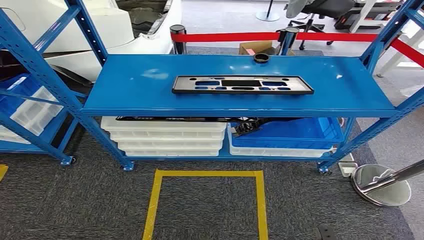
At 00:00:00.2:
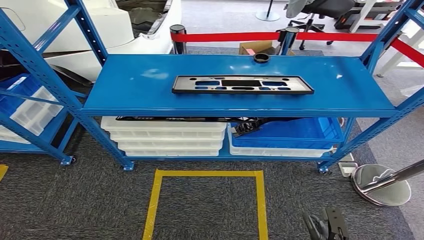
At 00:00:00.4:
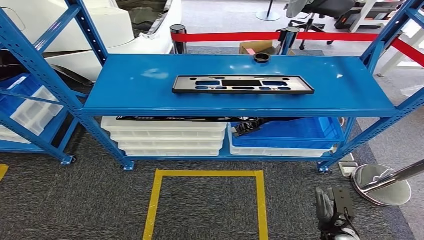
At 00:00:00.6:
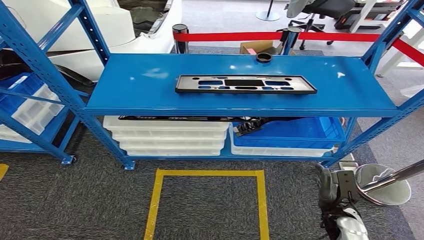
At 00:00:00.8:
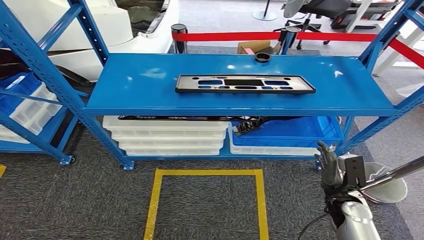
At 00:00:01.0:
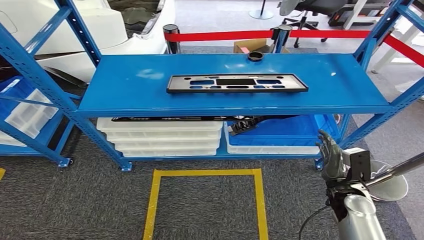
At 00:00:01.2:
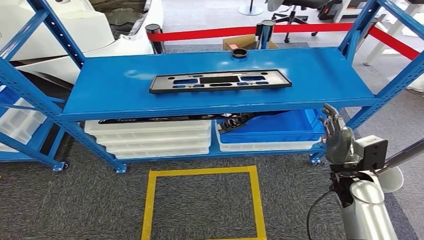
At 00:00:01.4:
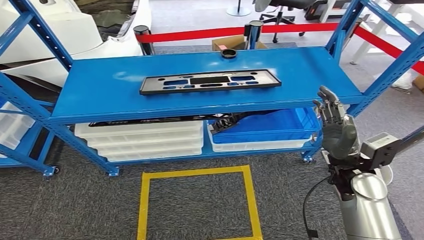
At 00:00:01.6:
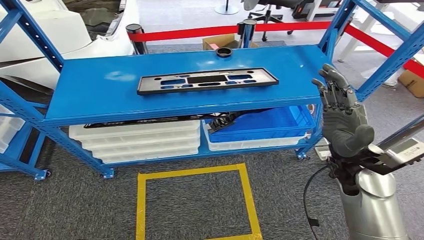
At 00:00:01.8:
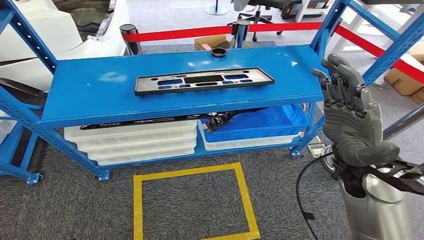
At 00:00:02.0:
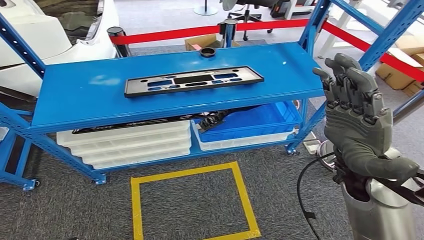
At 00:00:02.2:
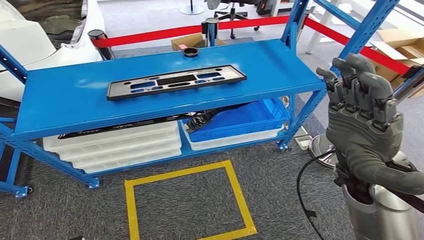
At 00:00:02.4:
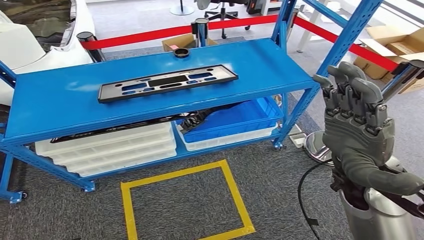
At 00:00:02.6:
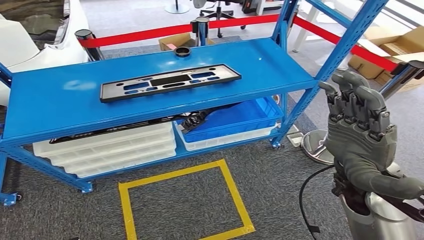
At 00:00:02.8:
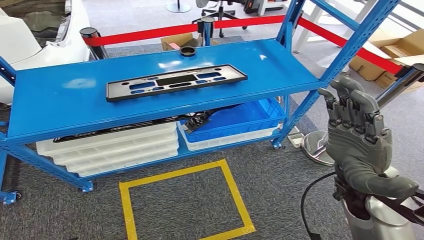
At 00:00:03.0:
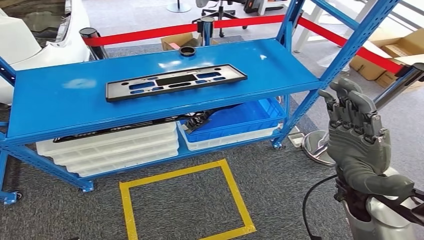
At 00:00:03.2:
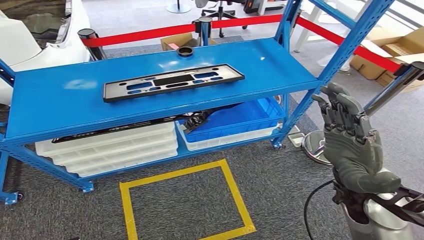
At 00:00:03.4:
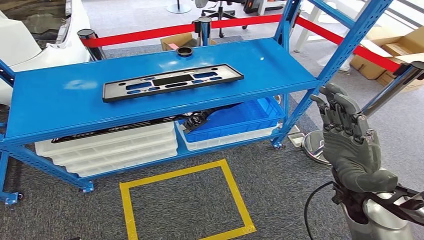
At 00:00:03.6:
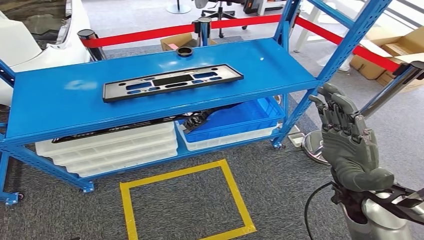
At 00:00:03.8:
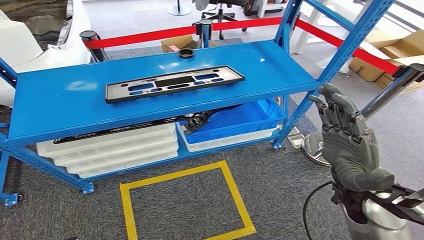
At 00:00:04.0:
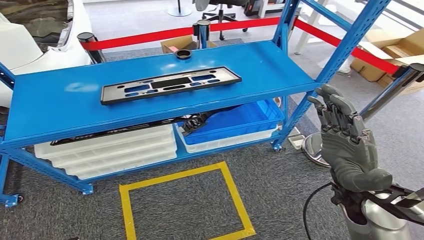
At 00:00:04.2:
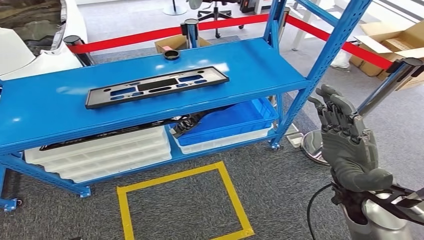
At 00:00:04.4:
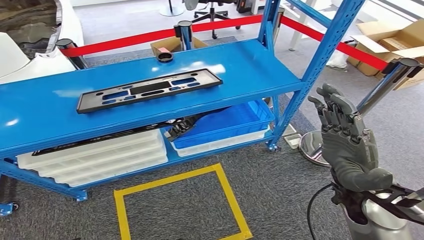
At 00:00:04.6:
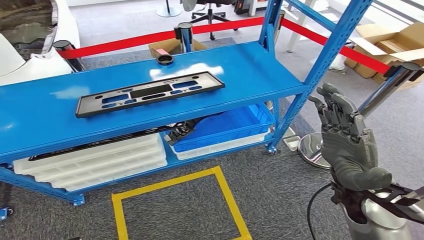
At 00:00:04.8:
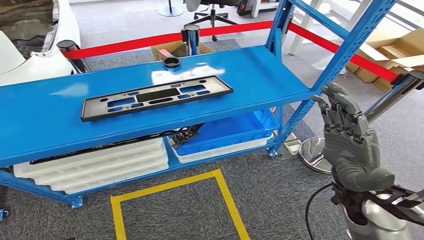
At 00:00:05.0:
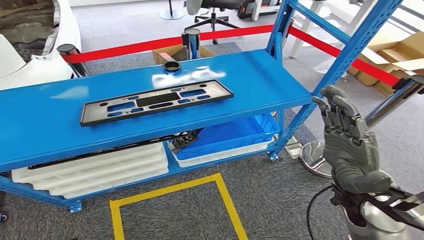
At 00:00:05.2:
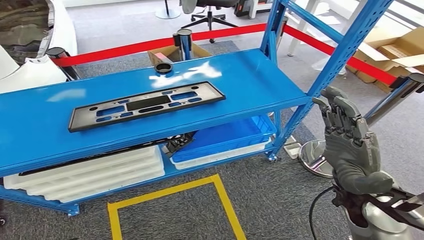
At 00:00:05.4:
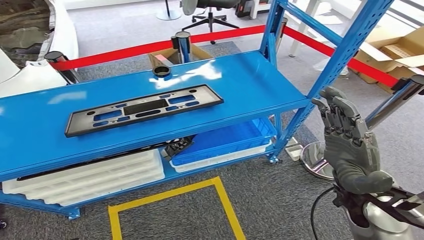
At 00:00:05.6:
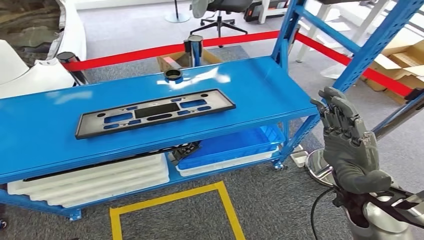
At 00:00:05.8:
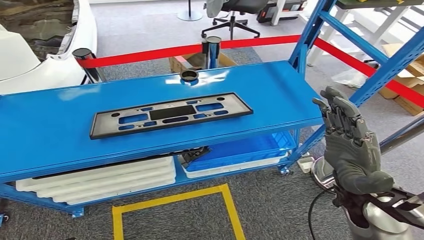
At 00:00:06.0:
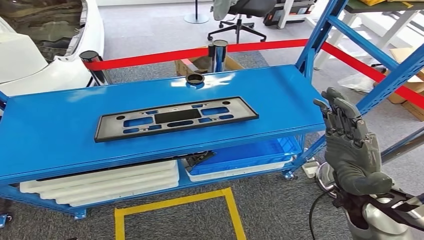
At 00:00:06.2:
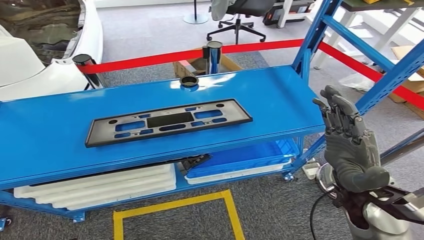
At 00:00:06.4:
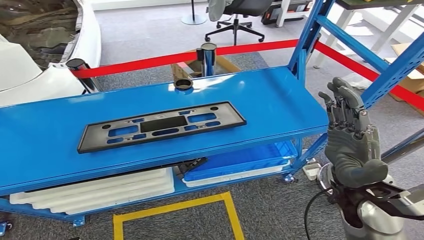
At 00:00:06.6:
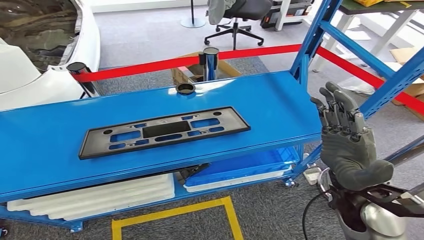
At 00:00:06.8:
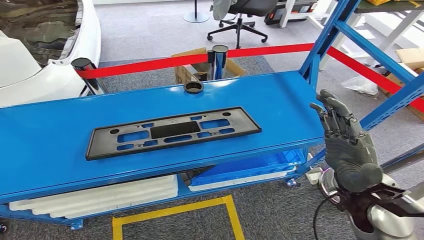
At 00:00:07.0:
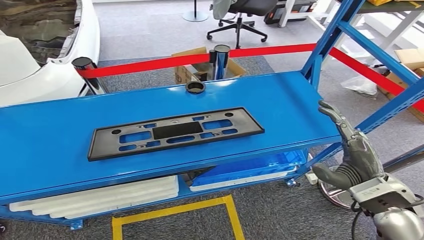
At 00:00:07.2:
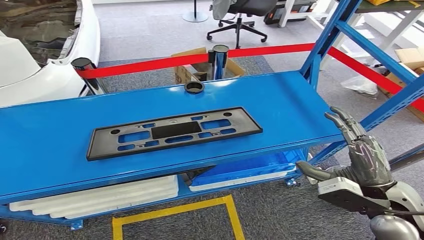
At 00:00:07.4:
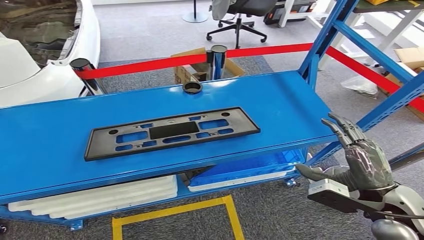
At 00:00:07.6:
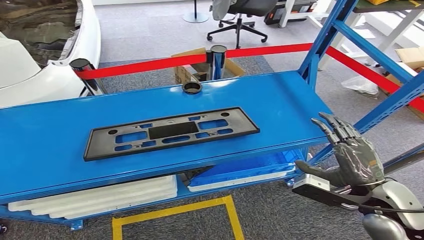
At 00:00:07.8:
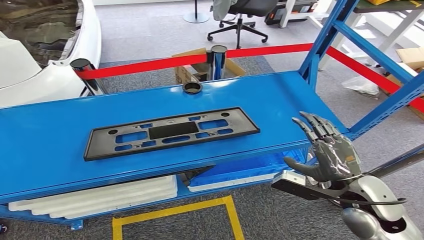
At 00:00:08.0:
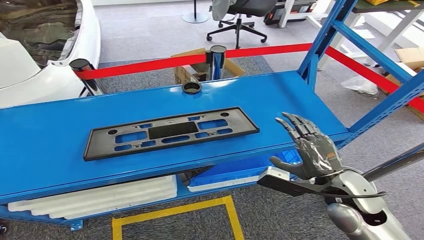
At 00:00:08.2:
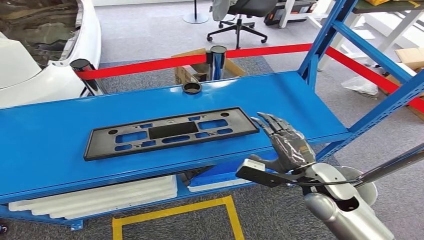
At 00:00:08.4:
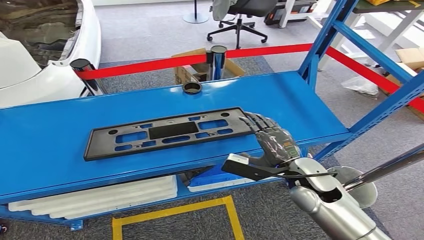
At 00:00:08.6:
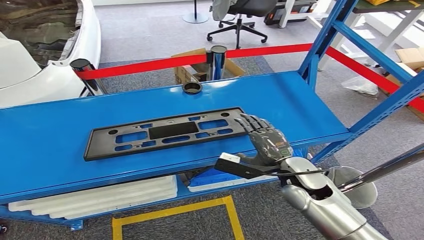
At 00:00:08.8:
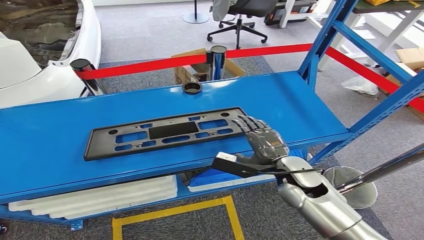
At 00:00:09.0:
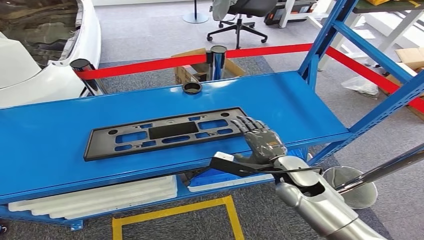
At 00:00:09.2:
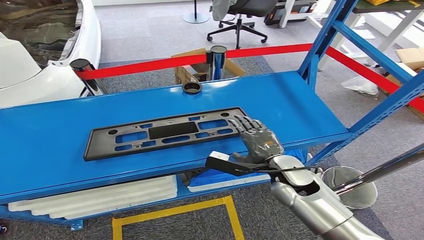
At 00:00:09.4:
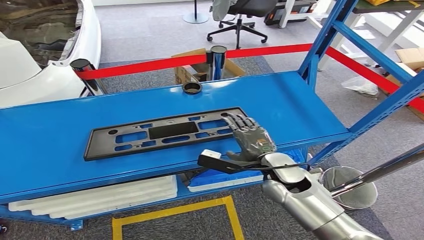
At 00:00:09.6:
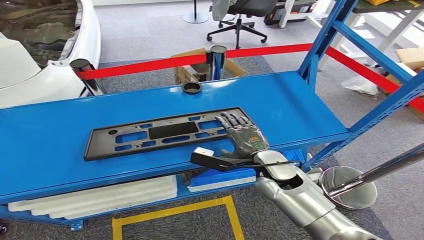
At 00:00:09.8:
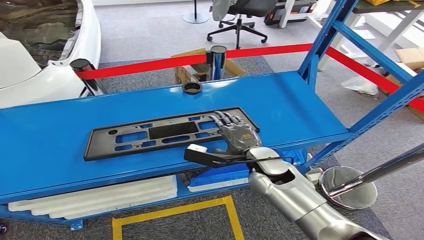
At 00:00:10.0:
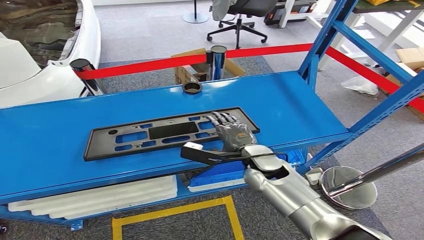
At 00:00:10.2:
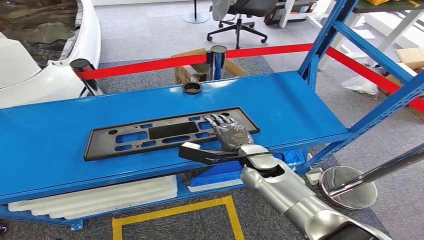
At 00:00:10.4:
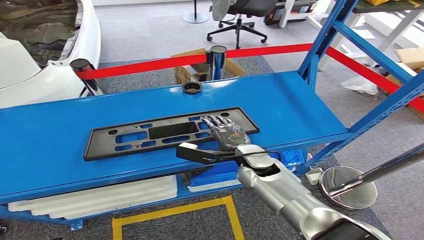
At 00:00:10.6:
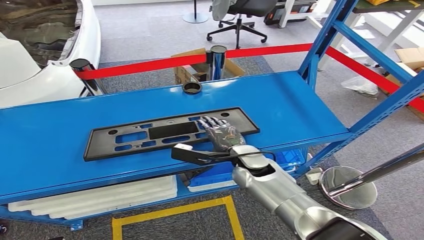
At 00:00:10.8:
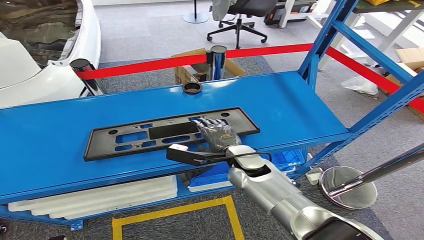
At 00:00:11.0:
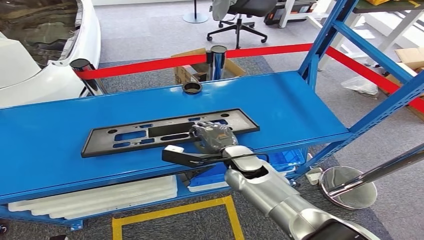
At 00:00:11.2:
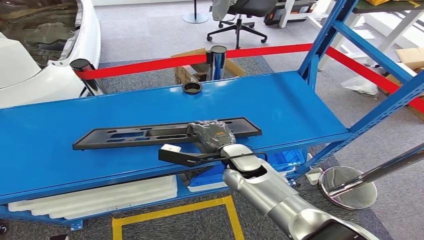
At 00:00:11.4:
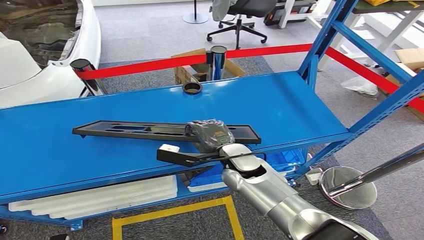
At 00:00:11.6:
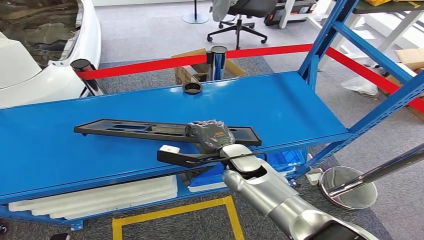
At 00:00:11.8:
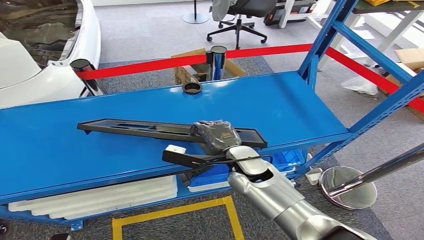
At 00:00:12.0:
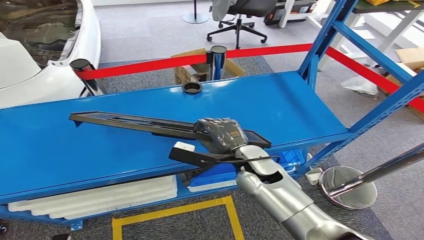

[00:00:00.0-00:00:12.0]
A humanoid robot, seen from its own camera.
00:00:07.6 to 00:00:09.0: The right hand shifts some 15 cm to the left, forward and downward.
00:00:09.0 to 00:00:10.4: The right hand heads to the left, covering about 10 cm.
00:00:10.4 to 00:00:12.0: The hands move only a little.

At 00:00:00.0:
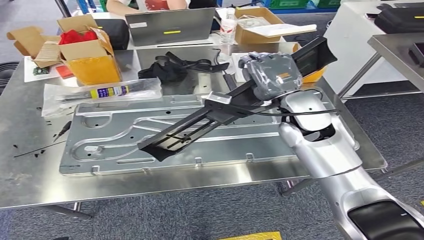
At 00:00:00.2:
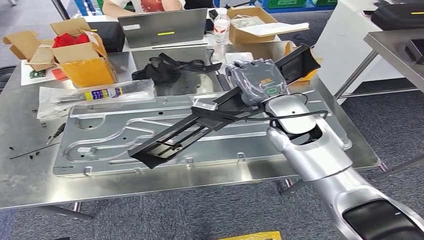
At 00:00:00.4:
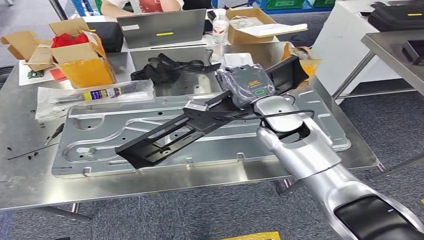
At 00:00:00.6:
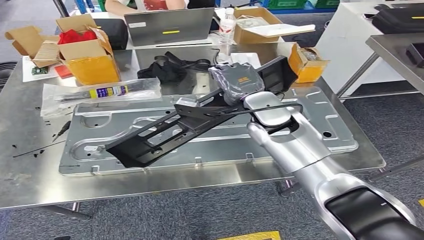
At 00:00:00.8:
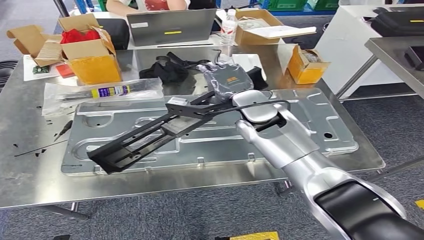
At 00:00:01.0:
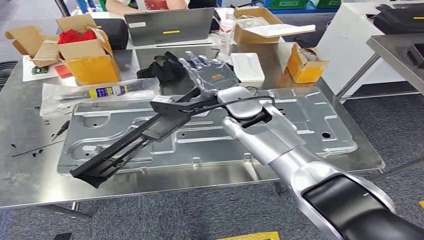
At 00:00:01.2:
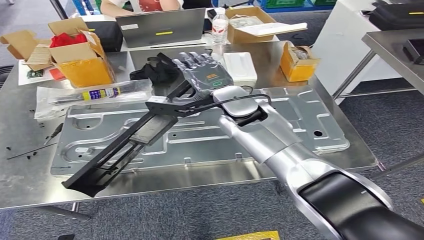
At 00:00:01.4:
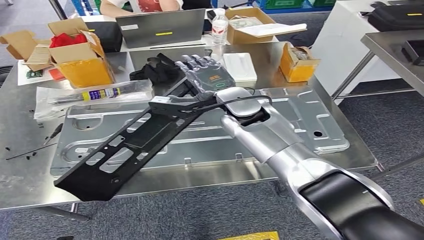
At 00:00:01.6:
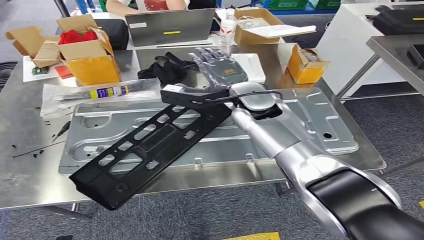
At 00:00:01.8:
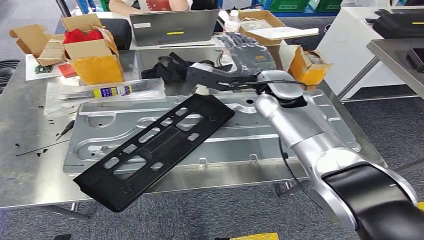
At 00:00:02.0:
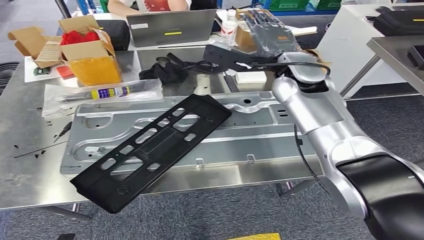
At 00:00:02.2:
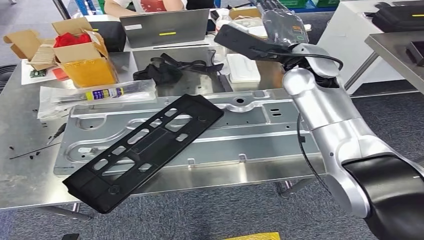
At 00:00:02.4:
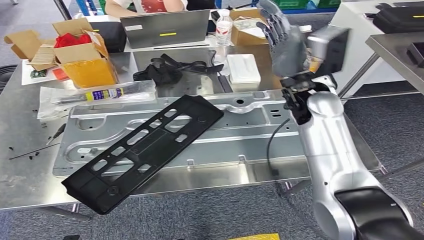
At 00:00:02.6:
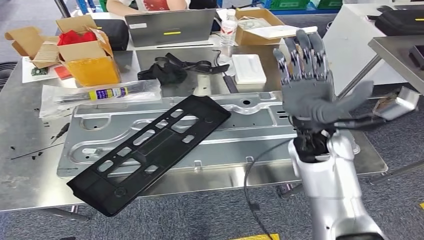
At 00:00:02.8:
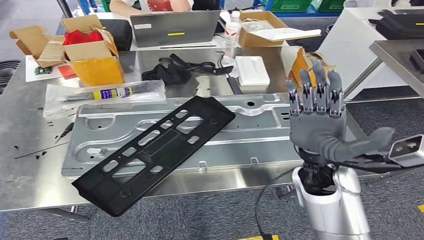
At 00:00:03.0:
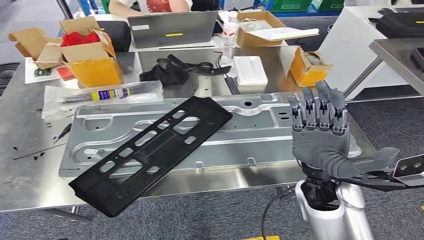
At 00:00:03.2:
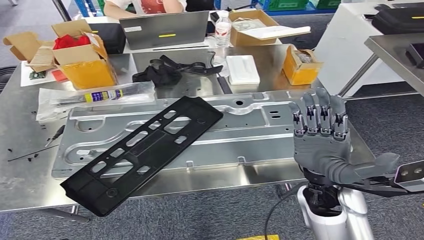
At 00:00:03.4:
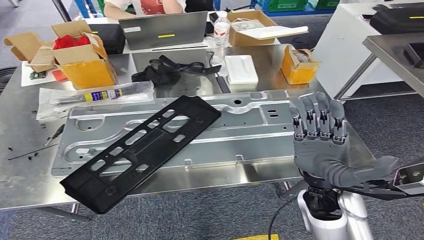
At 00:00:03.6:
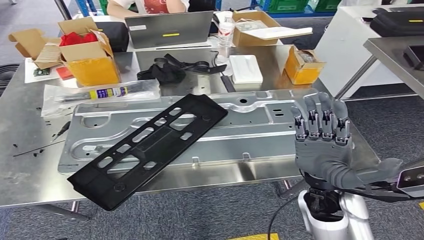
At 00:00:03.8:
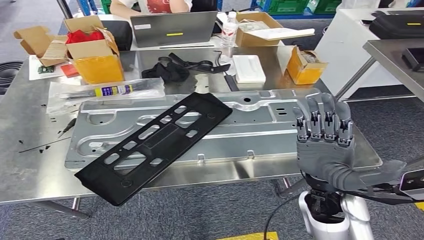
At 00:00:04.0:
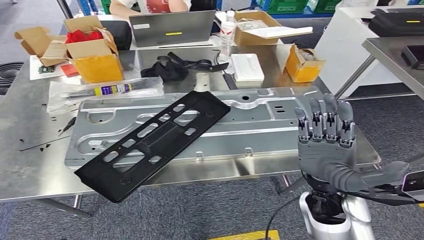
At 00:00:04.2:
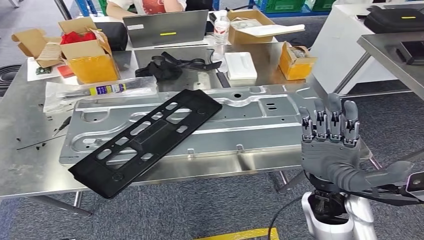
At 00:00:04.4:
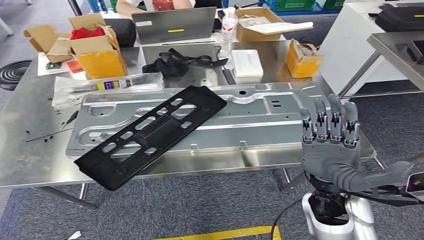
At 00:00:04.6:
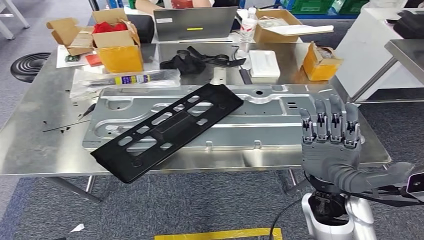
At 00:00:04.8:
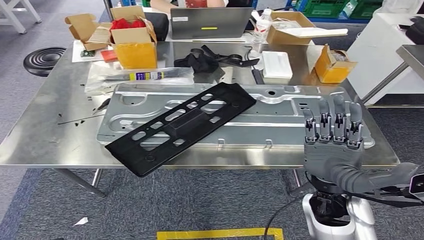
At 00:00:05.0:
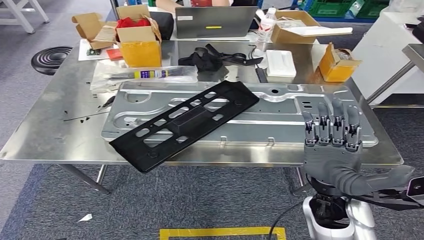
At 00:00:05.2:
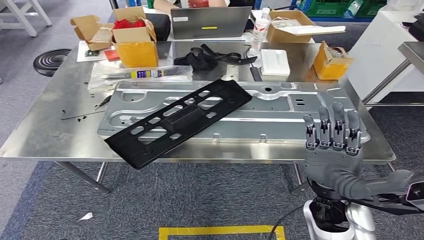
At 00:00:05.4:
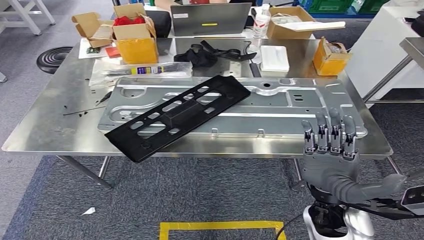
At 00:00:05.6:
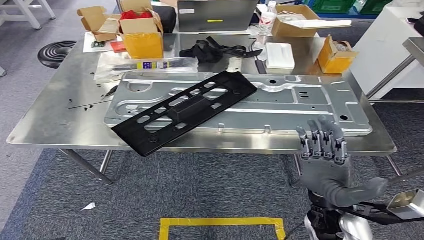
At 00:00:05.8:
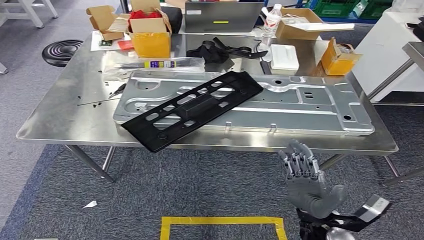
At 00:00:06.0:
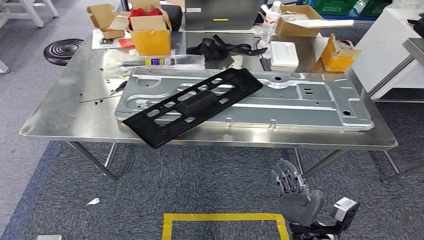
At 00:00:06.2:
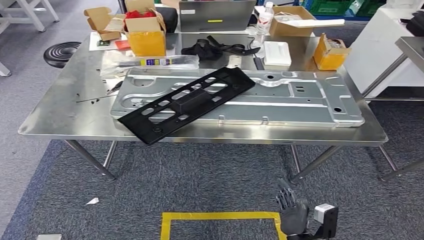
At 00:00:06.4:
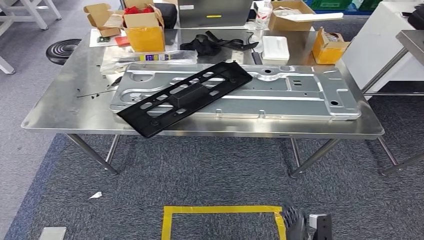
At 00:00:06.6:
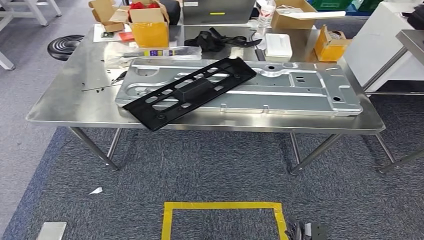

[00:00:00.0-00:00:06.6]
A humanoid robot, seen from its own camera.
Step, 00:00:00.2 to 00:00:03.4: Insert the small component into the corresponding slot on the workbench.
